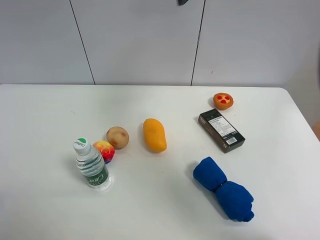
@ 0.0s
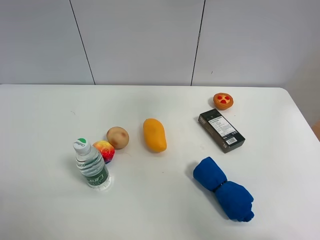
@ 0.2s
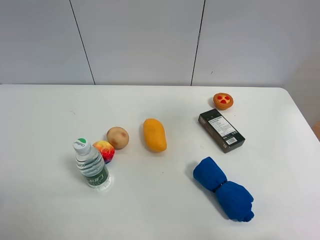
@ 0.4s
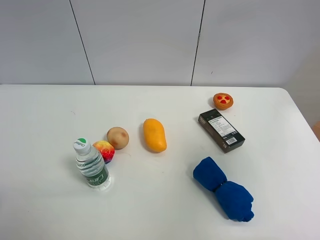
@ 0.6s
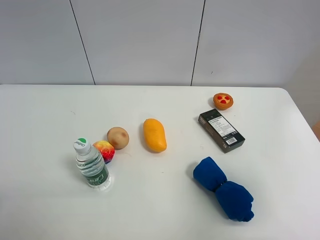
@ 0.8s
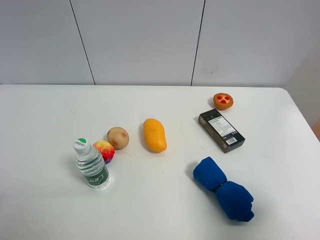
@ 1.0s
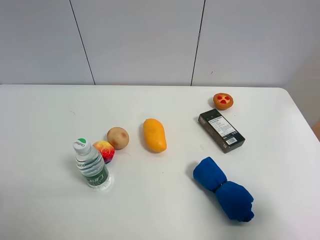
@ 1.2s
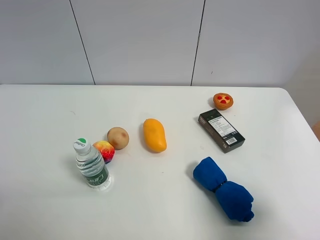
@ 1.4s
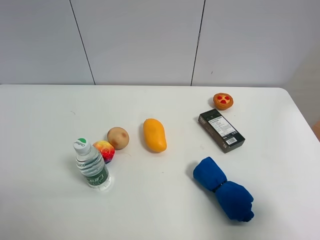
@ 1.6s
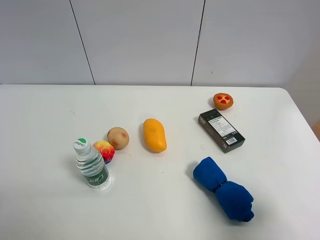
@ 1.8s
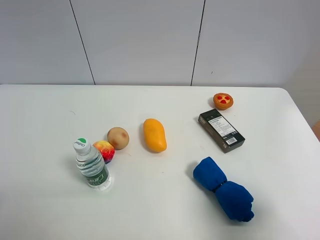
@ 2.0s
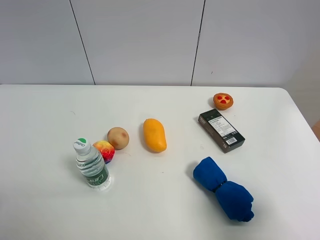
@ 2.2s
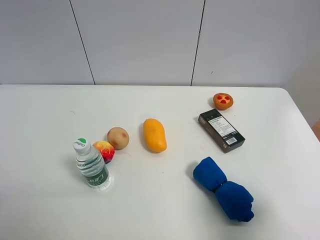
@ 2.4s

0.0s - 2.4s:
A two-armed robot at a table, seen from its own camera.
Task of the whole recording: the gripper move the object.
0.0s - 1.2s: The right gripper heads backward, downward and to the right, covering approximately 40 cm.
1.2s - 2.4s: Both grippers stay about where they are.

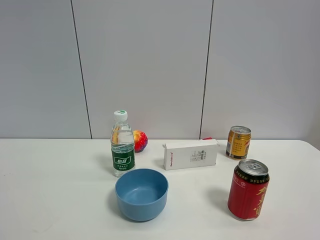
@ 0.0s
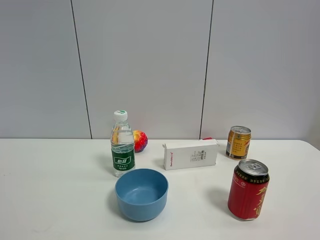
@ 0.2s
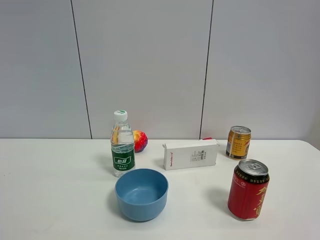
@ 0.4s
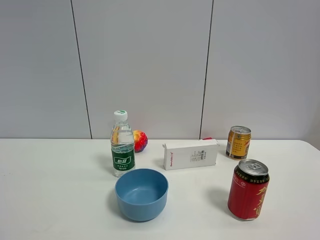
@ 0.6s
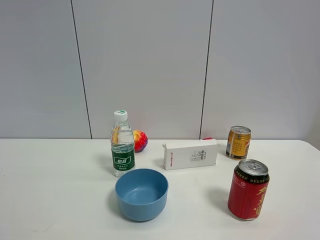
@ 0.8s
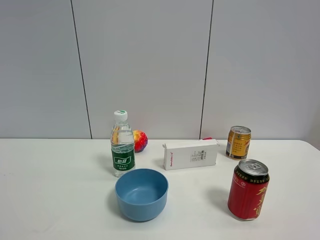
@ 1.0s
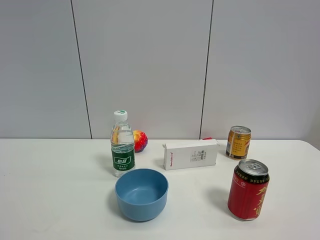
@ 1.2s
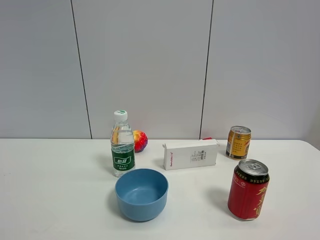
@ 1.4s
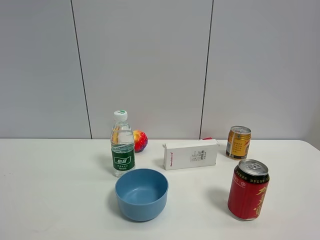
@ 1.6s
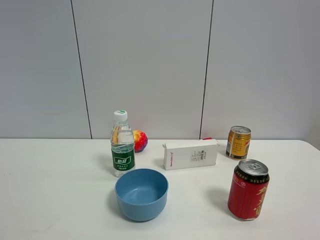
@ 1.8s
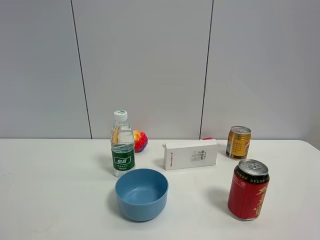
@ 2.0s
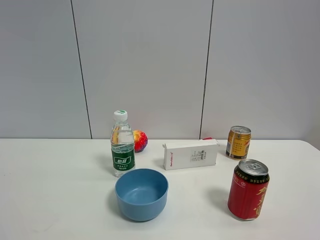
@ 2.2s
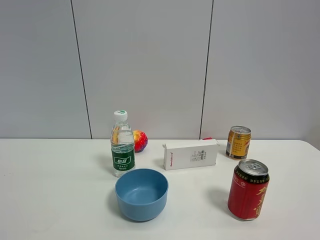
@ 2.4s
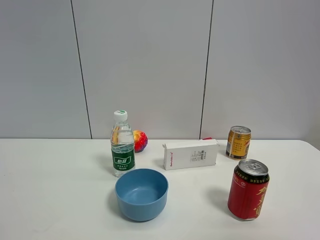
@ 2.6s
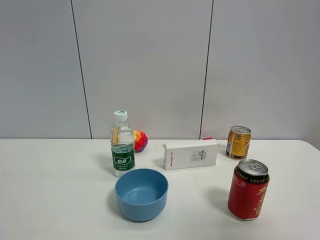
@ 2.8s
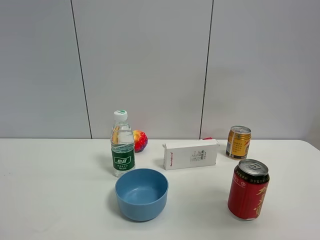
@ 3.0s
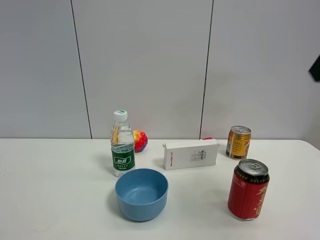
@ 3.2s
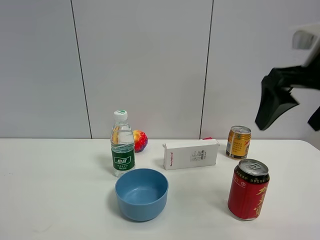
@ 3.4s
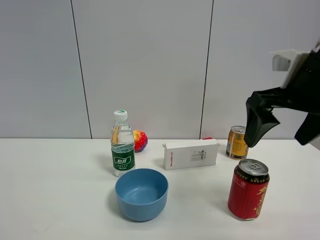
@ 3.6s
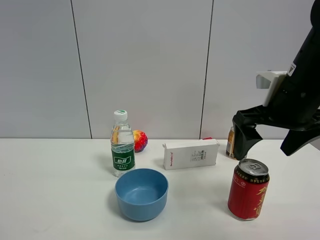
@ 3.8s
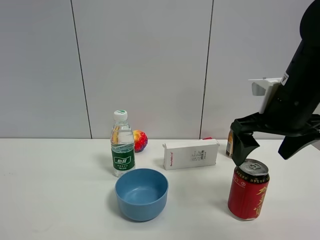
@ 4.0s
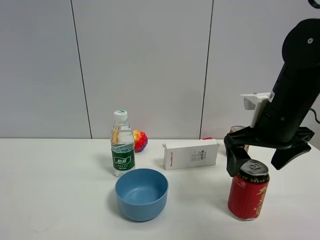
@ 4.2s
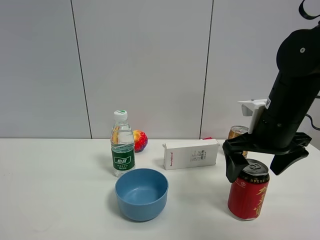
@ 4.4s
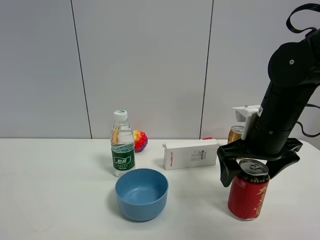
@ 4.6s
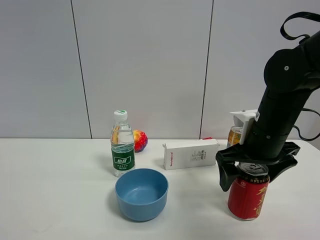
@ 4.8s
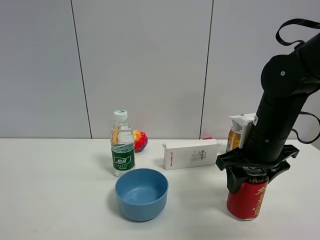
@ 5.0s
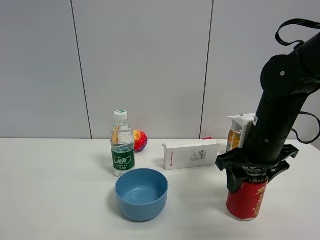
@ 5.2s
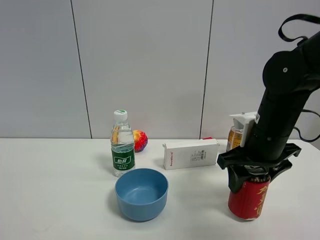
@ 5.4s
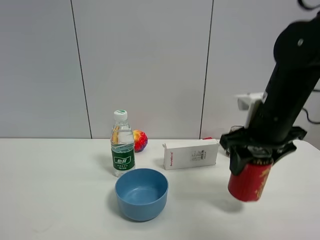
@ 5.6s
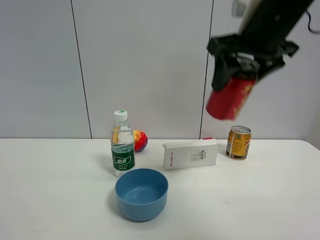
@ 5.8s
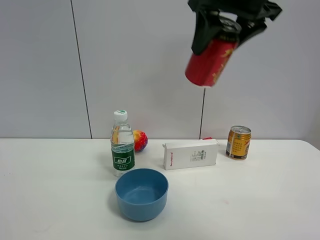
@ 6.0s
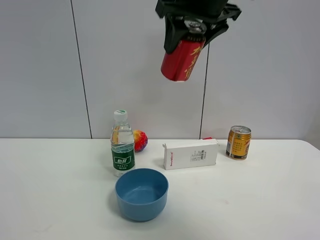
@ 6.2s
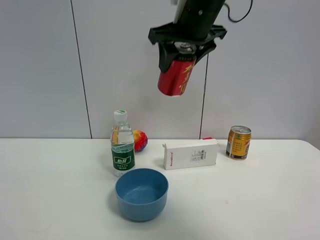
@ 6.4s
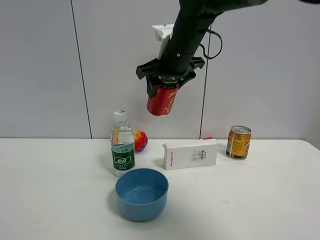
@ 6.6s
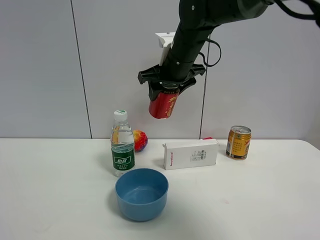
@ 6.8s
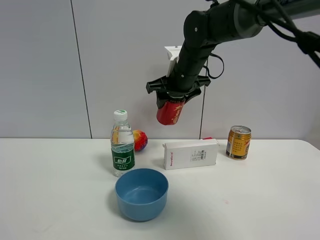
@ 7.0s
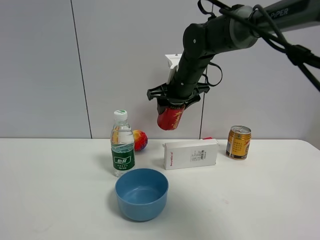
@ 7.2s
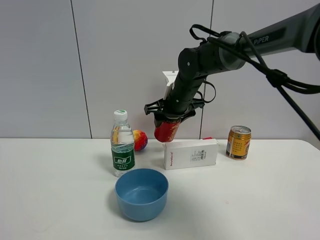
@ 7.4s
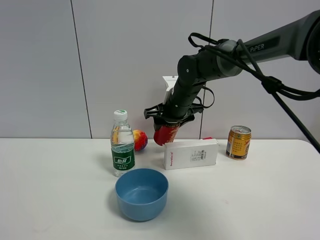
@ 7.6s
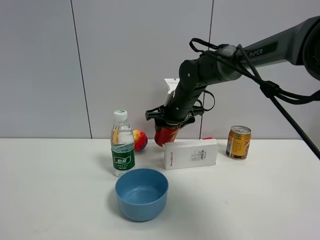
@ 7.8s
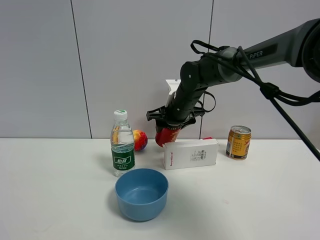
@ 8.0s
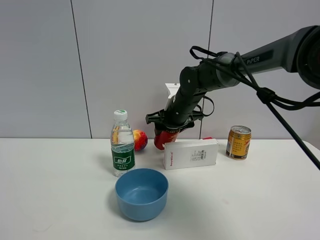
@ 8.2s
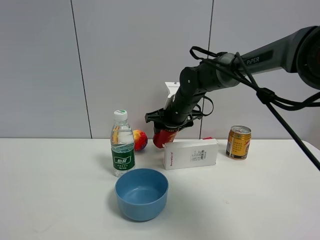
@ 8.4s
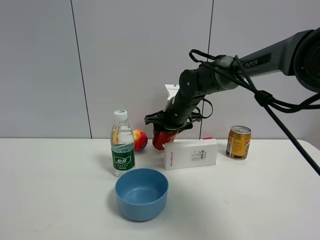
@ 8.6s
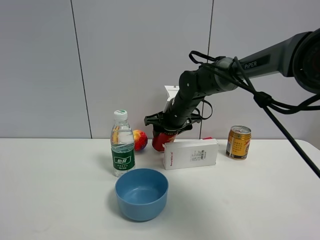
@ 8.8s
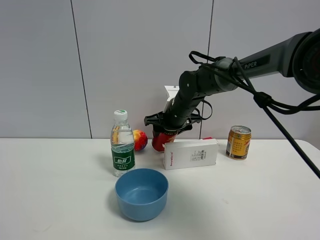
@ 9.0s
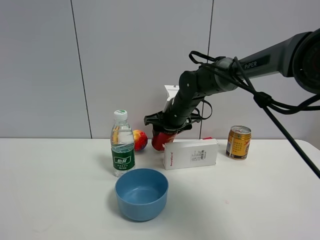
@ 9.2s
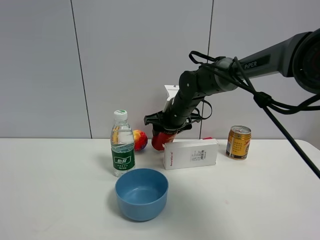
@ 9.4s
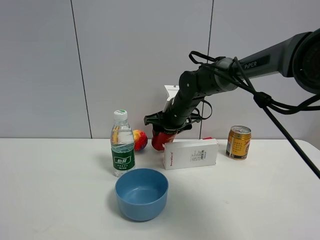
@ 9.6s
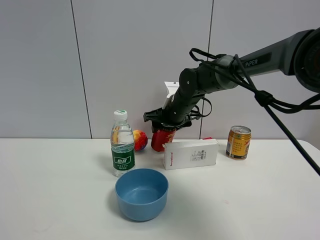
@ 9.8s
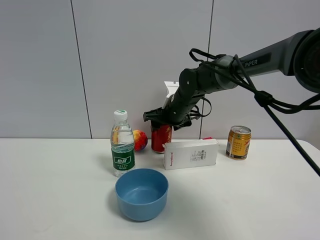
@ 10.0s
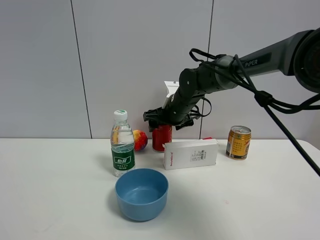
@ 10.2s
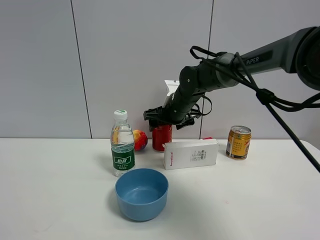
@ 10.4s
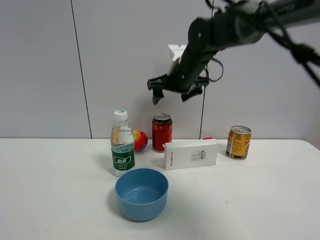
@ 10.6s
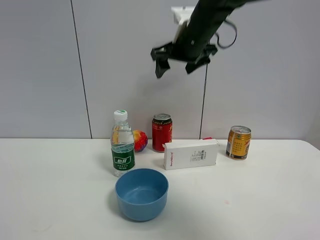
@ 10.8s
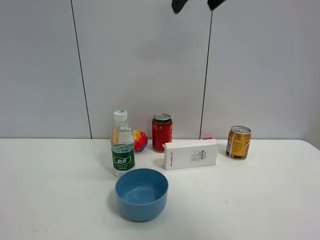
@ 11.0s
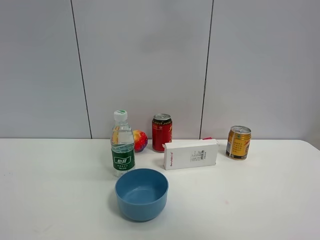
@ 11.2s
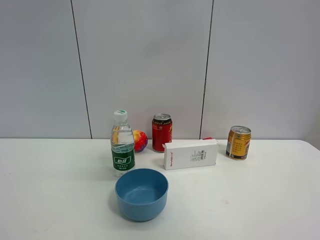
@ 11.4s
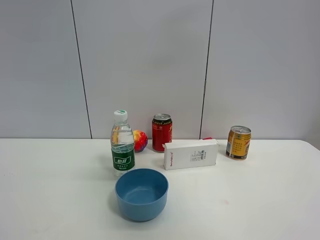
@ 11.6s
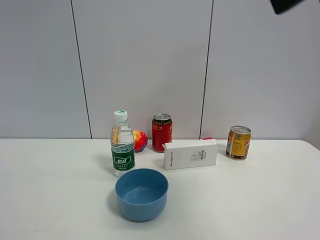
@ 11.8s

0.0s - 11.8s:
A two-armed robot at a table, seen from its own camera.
Task of the whole recording: the gripper move the object.
Step, 0.0s - 5.0s: Grasp the Jia Duo Baowith the right gripper.
Step, 5.2s - 10.0s: Place the Jia Duo Bao on the table with the right gripper.
0.0s - 1.4s: The two grippers keep their place.
1.4s - 3.0s: The right gripper is displaced forward and upward by some 20 cm.
3.0s - 4.4s: The right gripper moves downward, forward and to the left, some 25 cm.
4.4s - 6.0s: The right gripper moves upward, roughly 20 cm, and closes.
6.0s - 7.4s: The right gripper is displaced downward and forward by approximately 25 cm.
7.4s - 8.8s: There are only small adjustments of the grippers.
8.8s - 10.4s: The right gripper opens up.
10.4s - 11.8s: The right gripper goes some 40 cm backward, upward and to the right.

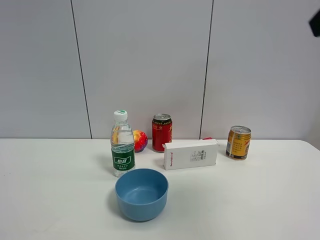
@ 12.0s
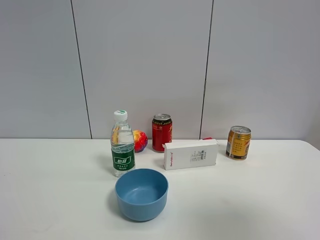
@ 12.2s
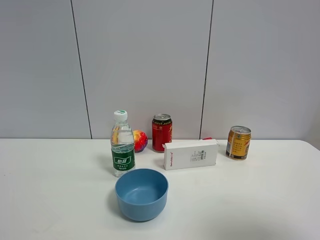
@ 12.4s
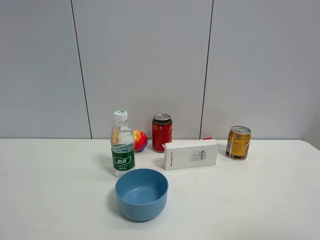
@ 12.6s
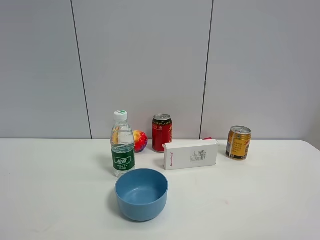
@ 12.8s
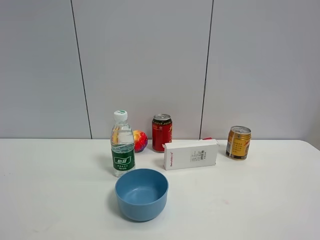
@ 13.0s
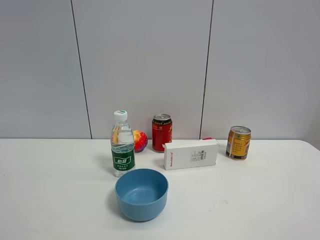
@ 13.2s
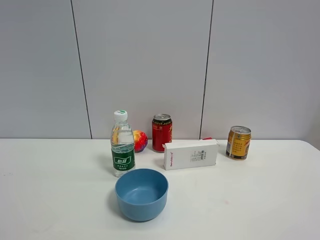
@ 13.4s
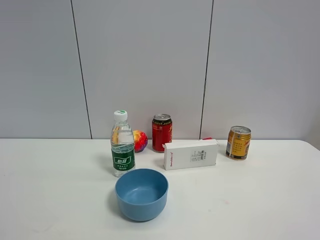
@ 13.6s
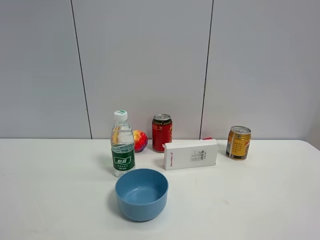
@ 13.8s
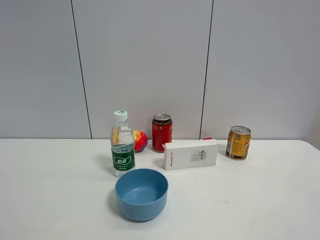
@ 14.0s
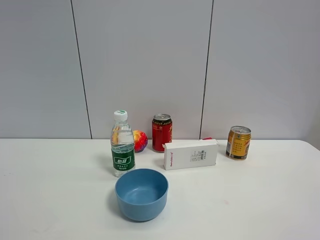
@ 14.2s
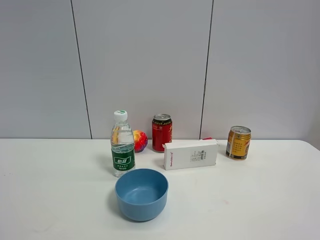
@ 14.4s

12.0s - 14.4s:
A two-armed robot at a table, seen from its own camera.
Task of the whole recording: the gripper move the object.
12.0s - 13.2s: The right gripper shifts some 20 cm backward and downward.
13.2s - 14.4s: Neither gripper changes place.

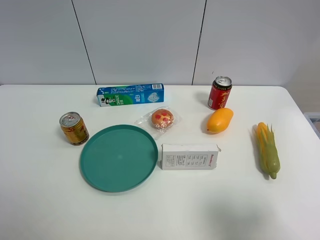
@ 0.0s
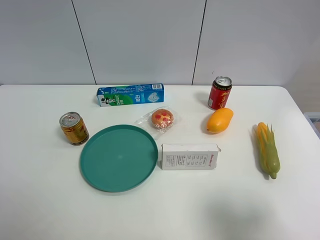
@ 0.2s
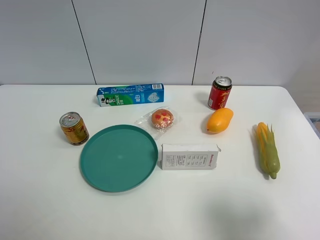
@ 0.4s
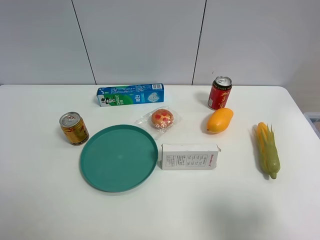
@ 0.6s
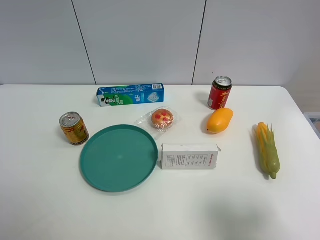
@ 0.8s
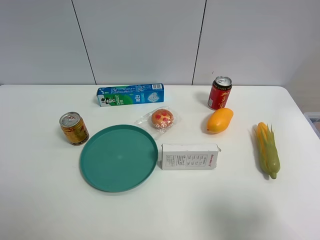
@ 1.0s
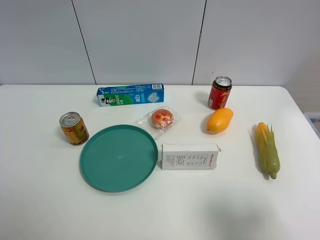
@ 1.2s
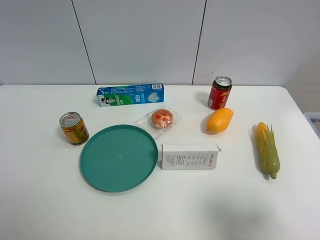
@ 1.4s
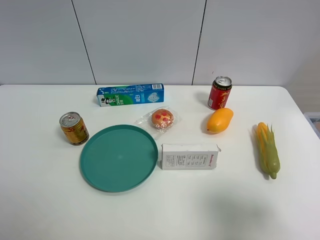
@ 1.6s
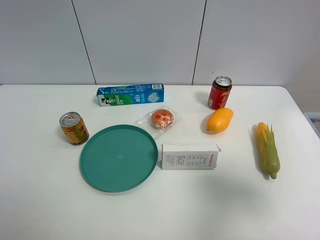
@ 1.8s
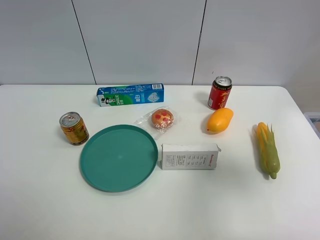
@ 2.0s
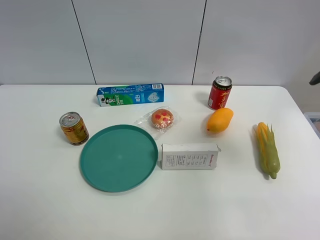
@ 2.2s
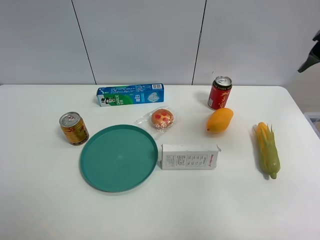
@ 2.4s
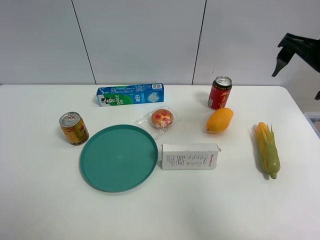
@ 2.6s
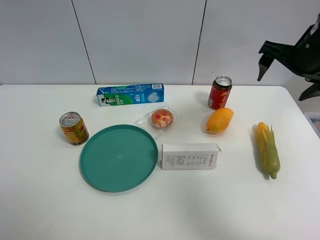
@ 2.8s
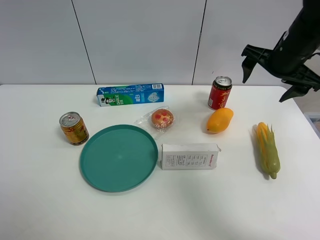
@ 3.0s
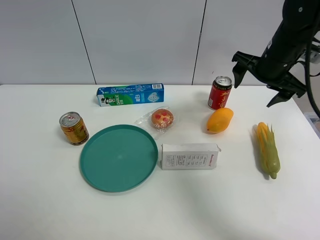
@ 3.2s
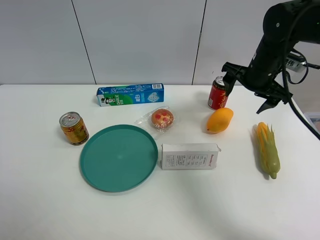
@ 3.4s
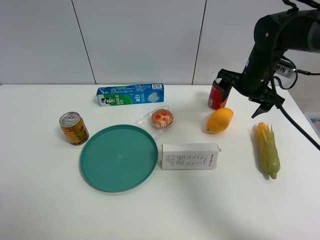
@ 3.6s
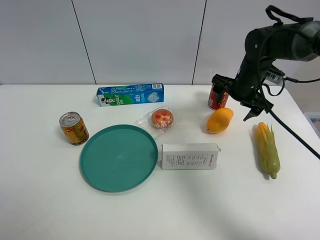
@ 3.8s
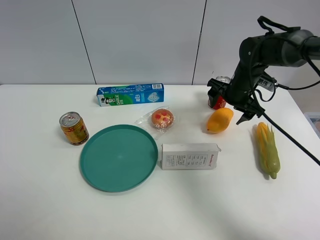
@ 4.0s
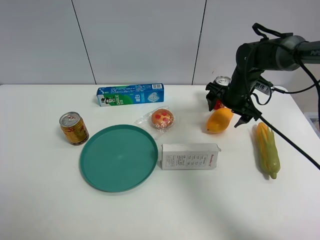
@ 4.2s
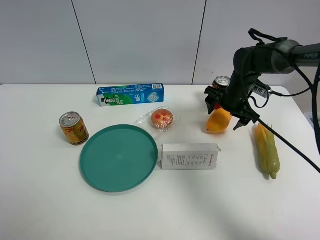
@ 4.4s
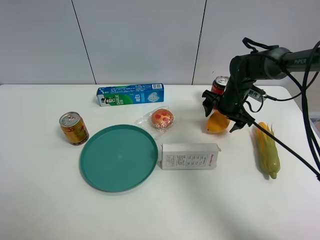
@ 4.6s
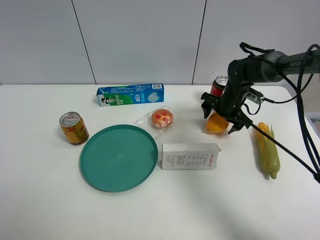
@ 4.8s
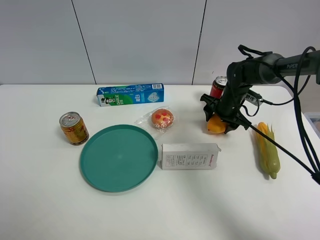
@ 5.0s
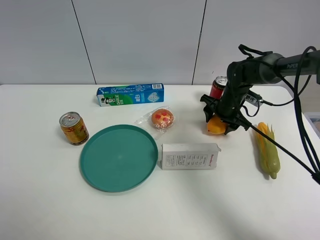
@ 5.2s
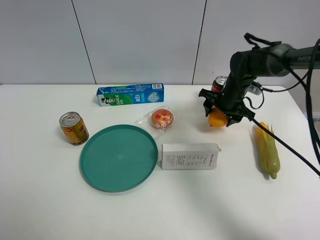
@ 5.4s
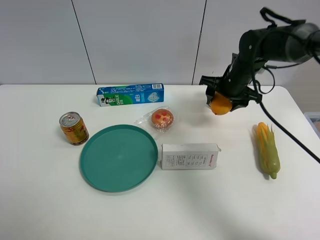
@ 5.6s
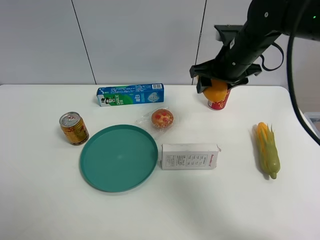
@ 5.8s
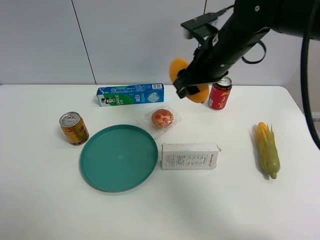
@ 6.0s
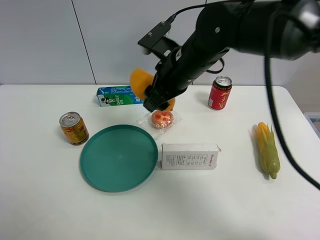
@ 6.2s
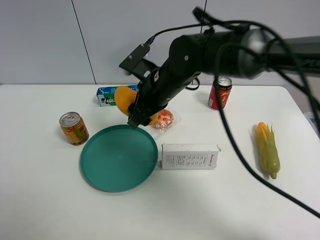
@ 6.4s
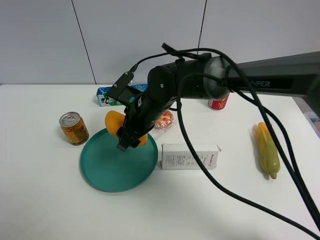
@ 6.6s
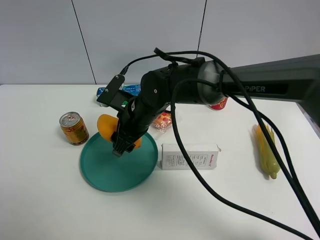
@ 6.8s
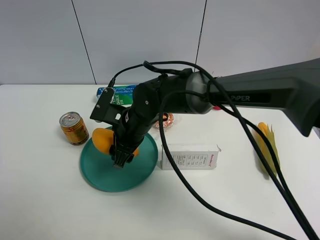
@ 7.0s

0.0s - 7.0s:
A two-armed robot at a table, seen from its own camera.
Task of the whole recording: the gripper move the object.
Step, 0.0s - 5.0s: Grasp the mango with the right gripper.
1.4s - 2.8s: The right gripper goes roughly 30 cm forward.
2.8s - 4.2s: The right gripper goes some 20 cm downward, forward and to the left.
4.2s - 5.6s: The right gripper closes up.
5.6s - 7.0s: The right gripper heads to the left and backward, covering some 25 cm.
